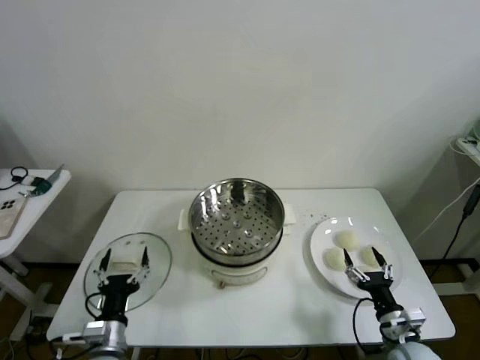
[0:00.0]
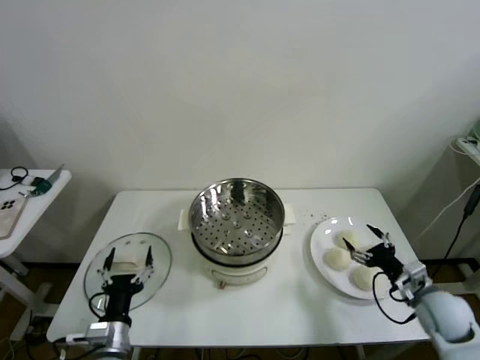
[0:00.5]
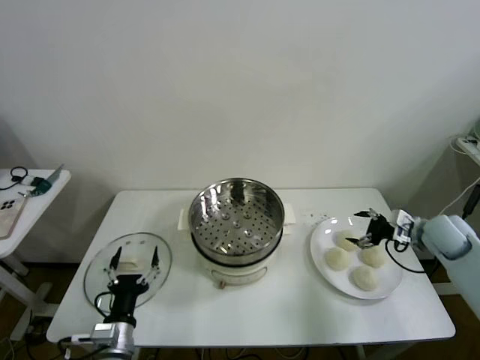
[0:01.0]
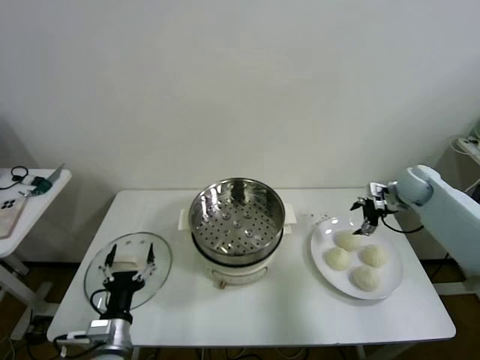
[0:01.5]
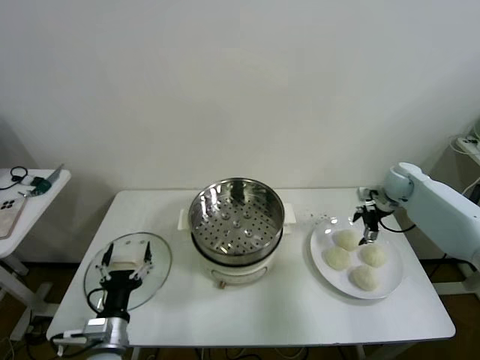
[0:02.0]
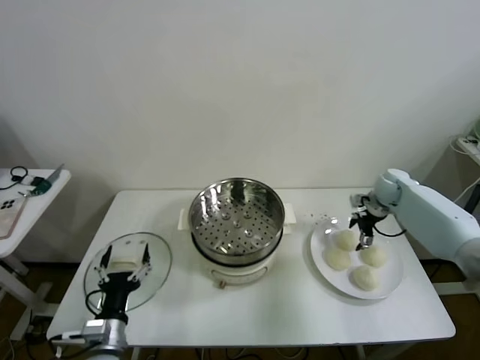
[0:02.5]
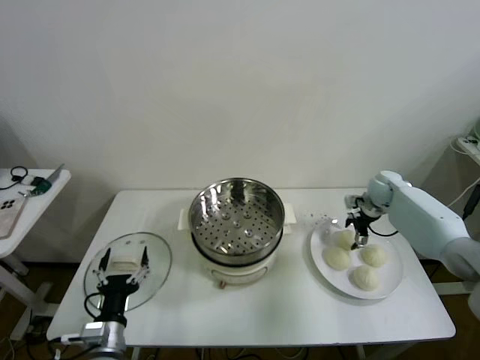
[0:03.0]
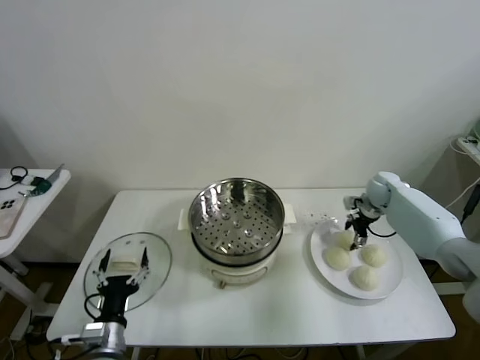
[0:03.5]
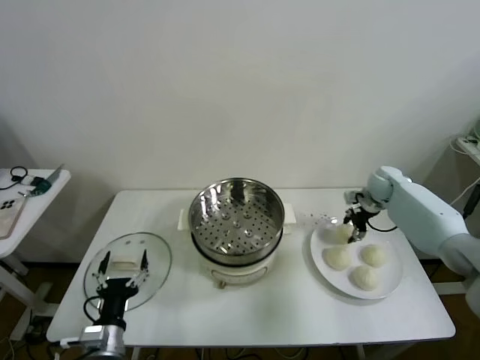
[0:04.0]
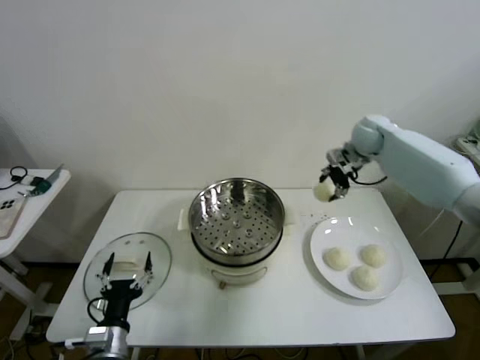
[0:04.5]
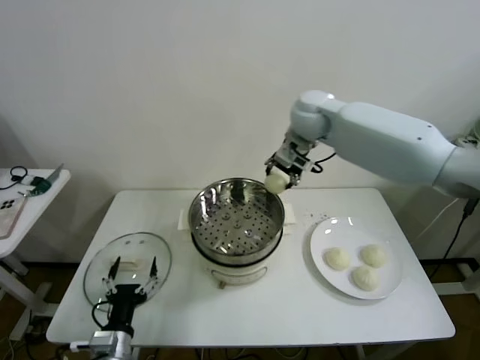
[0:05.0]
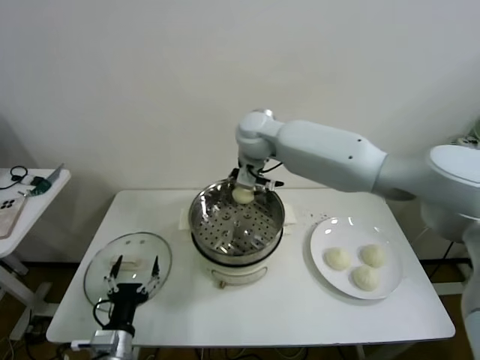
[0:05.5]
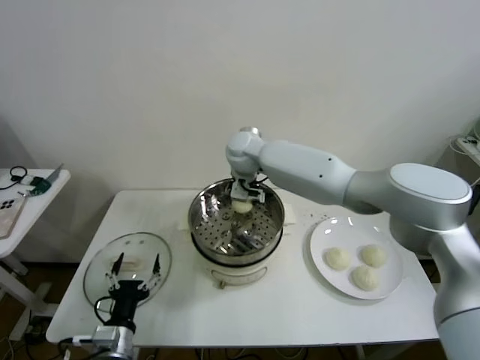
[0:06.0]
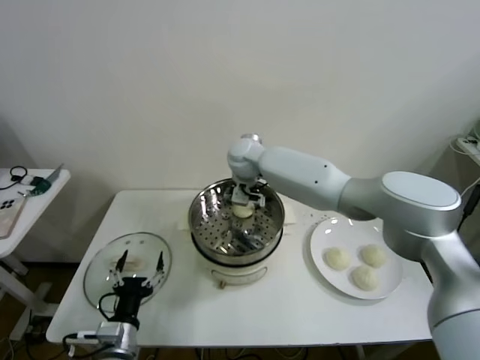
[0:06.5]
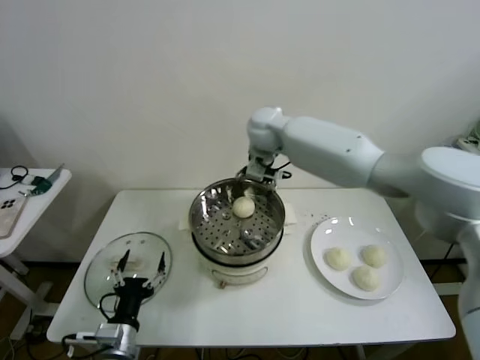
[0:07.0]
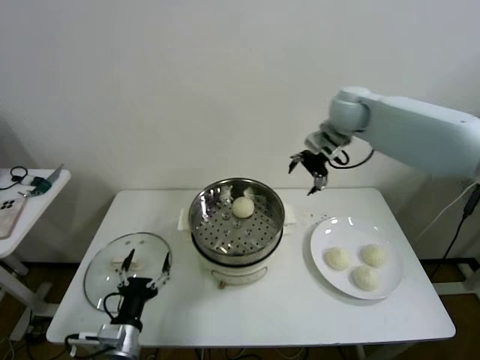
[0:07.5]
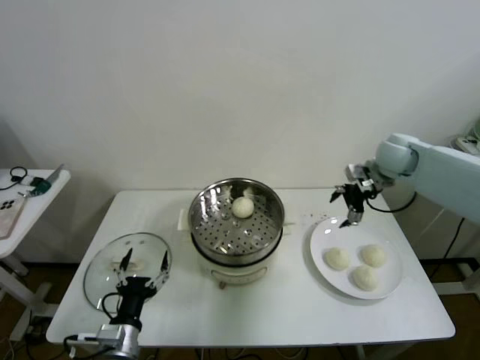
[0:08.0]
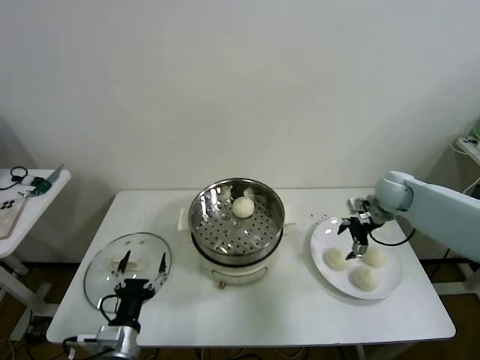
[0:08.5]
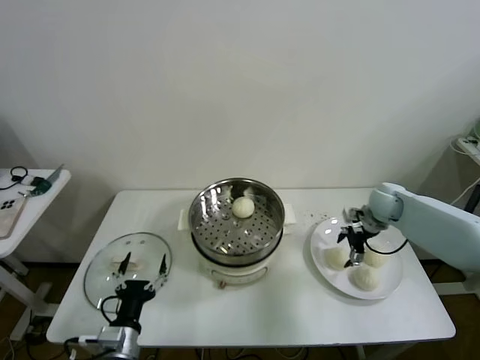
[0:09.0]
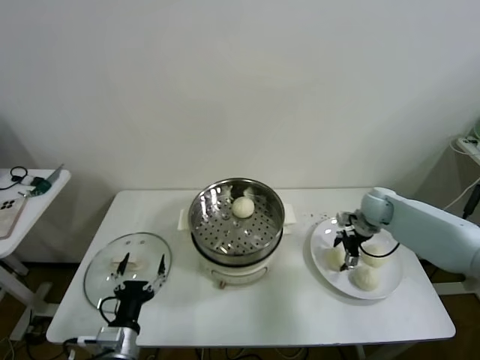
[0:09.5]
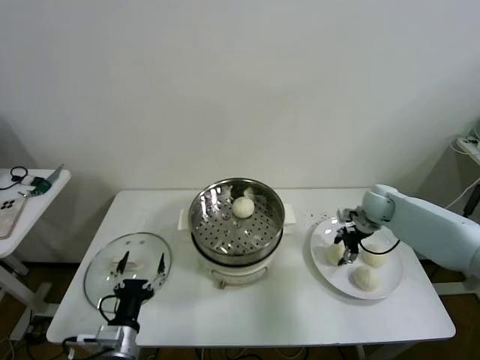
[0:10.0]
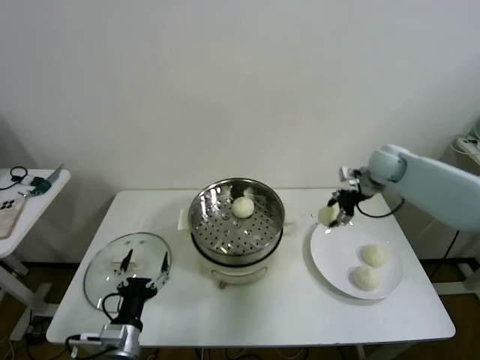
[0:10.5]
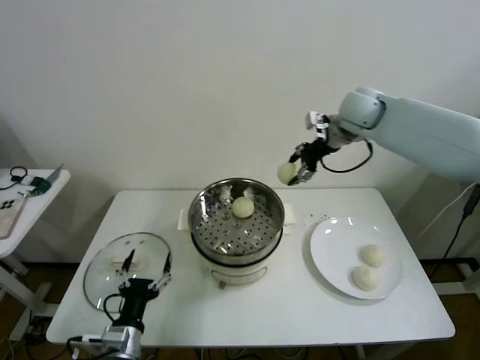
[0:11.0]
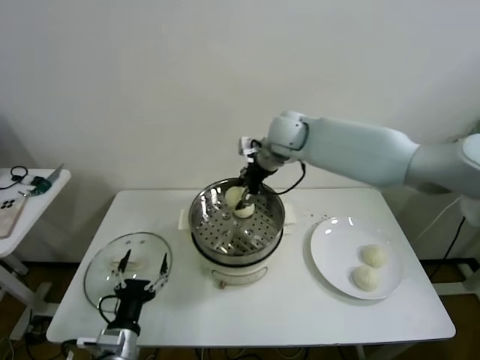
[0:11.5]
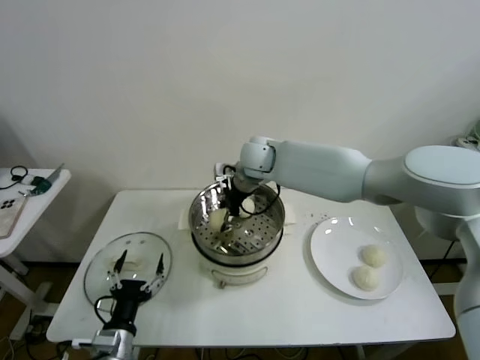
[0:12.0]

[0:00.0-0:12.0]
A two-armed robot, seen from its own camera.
Task of the whole recording: take steamed baozi put them in steamer then cover it.
Step, 0:00.0 to 0:03.5: Grasp the baozi in the plate with right gripper.
Step, 0:04.0 to 0:06.5: Place the baozi on the steamer with right gripper.
Step, 0:07.0 to 0:09.5: Grasp the baozi in the plate with right gripper.
0:02.0 to 0:04.0: The right gripper closes its fingers.
0:04.0 to 0:06.0: The right gripper travels to the left by about 40 cm.
0:06.0 to 0:08.0: The right gripper is displaced to the right by approximately 35 cm, and opens up.
0:08.0 to 0:10.0: The right gripper goes approximately 15 cm downward, and closes.
0:10.0 to 0:12.0: The right gripper goes roughly 35 cm to the left and upward.

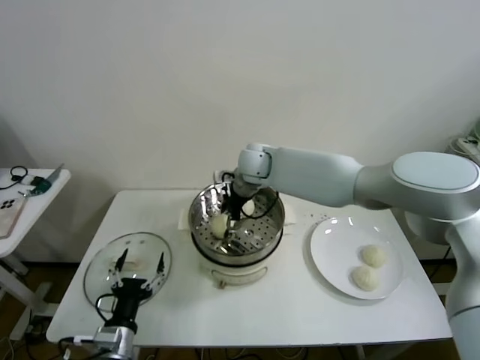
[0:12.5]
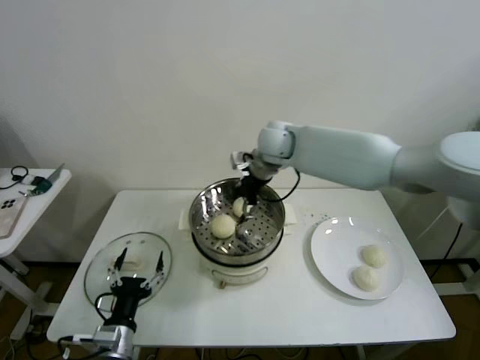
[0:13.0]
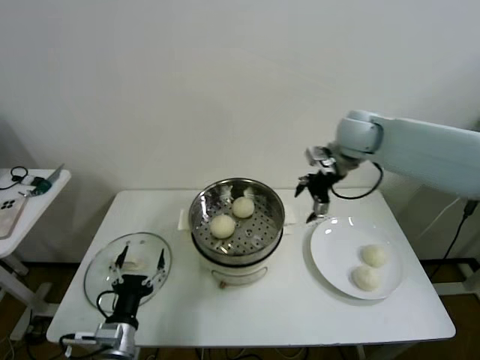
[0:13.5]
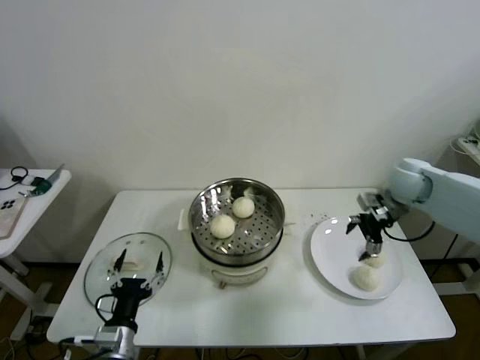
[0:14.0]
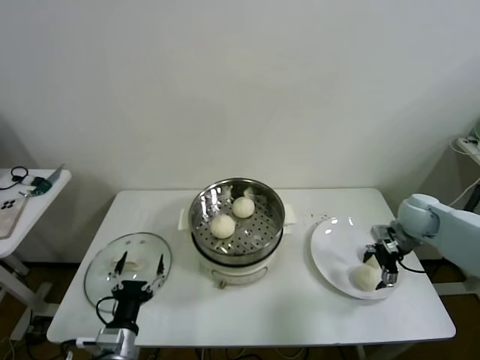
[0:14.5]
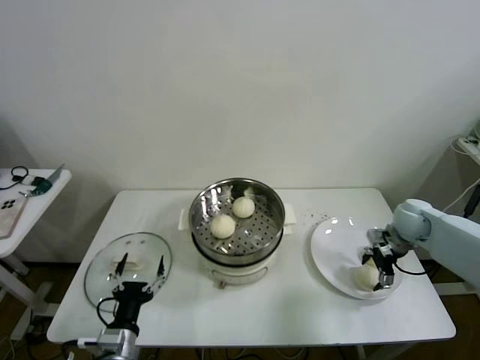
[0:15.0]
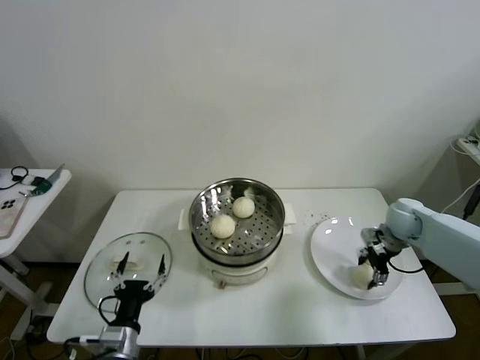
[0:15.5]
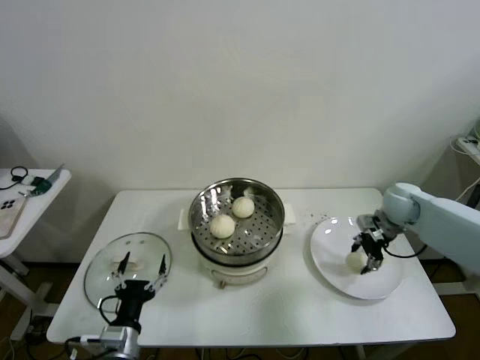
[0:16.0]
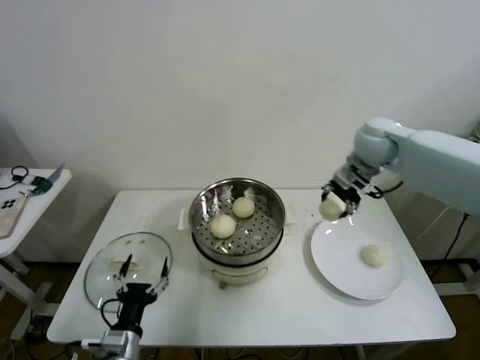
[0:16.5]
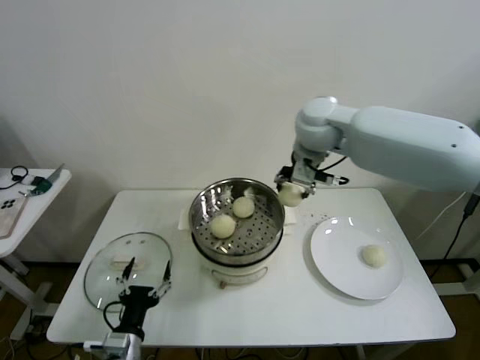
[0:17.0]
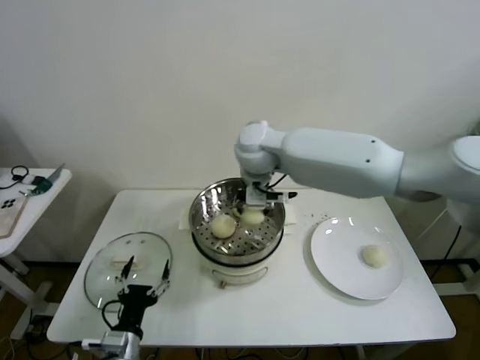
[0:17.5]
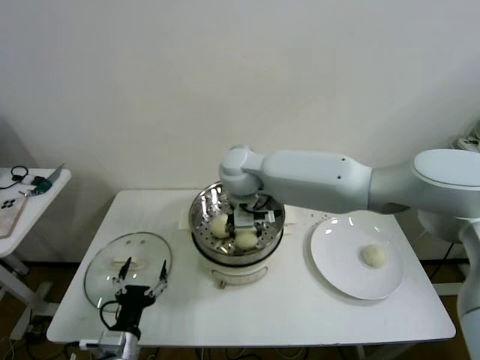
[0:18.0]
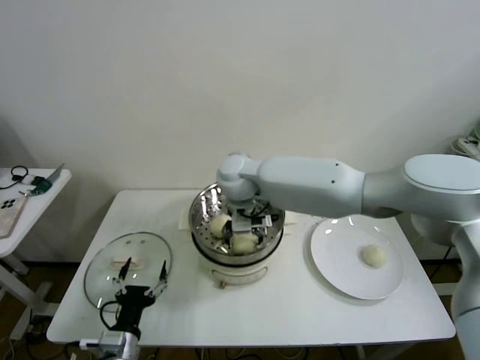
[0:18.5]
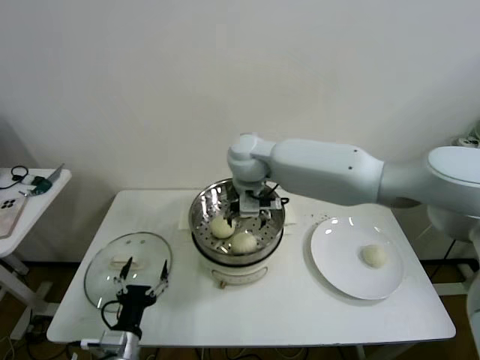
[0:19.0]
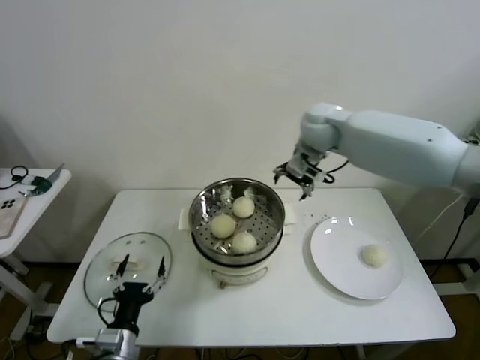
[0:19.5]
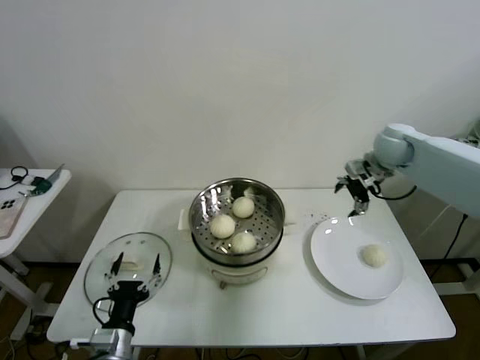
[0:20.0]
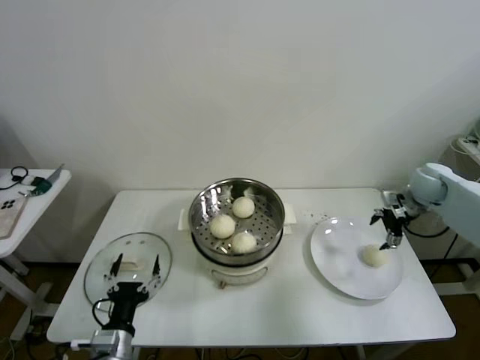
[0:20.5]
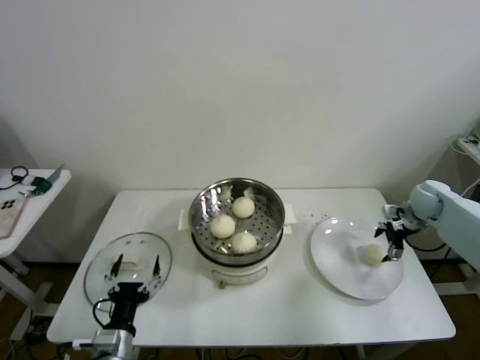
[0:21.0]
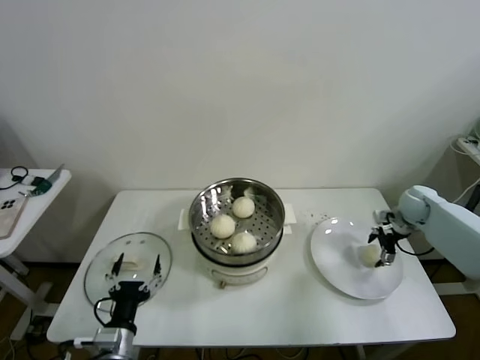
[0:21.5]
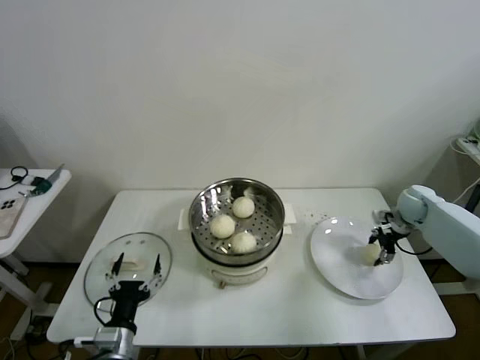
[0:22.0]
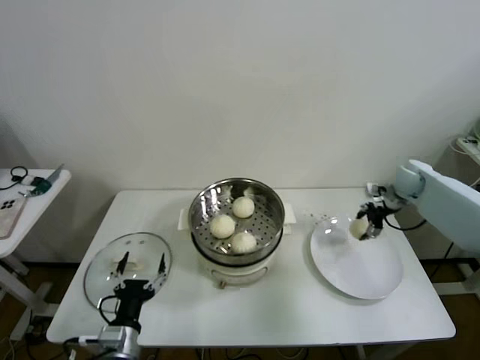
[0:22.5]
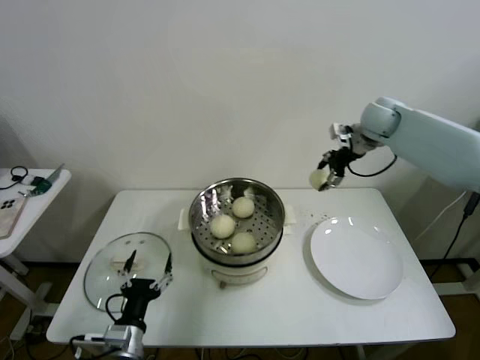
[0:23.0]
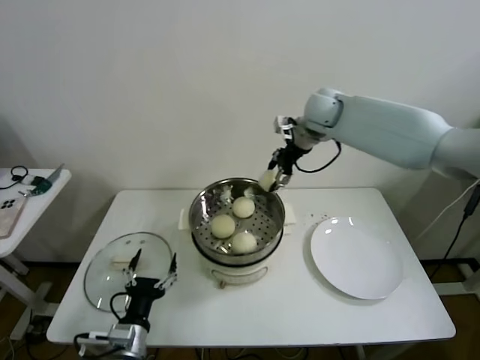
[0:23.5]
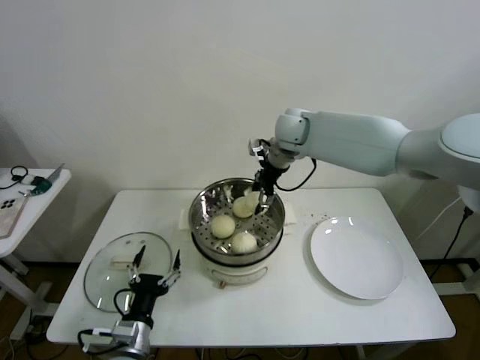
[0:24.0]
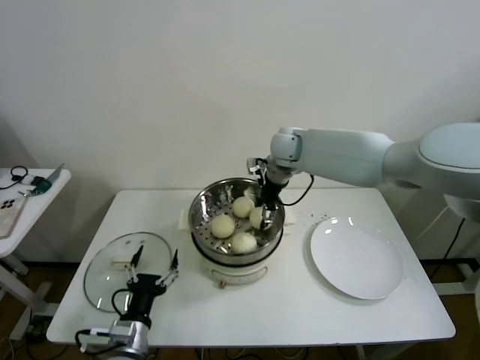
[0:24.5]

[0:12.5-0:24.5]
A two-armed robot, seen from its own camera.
Task of the whole recording: take steamed baozi put them in steamer then cover it.
Step, 0:13.0 to 0:15.5: Grasp the baozi in the plate with right gripper.
Step, 0:16.0 to 0:18.5: Place the baozi on the steamer with right gripper.
Step, 0:19.0 to 0:21.5: Grasp the baozi in the plate with right gripper.
0:12.5 to 0:14.5: The right gripper shifts approximately 40 cm to the right.
0:14.5 to 0:16.5: The right gripper is displaced upward, to the left and forward by some 20 cm, and closes.
0:16.5 to 0:18.5: The right gripper shifts approximately 30 cm to the left, and opens up.
0:18.5 to 0:20.5: The right gripper shifts approximately 50 cm to the right.
0:20.5 to 0:22.5: The right gripper closes its fingers.
0:22.5 to 0:24.5: The right gripper travels to the left by approximately 35 cm.

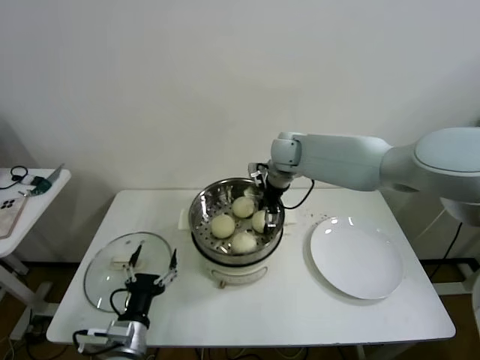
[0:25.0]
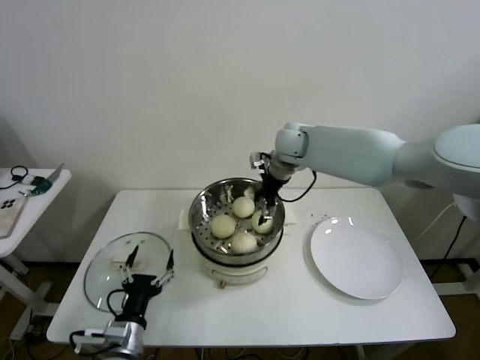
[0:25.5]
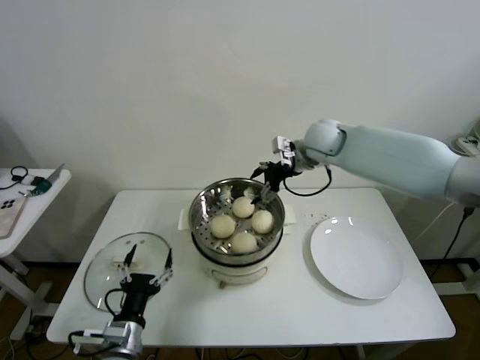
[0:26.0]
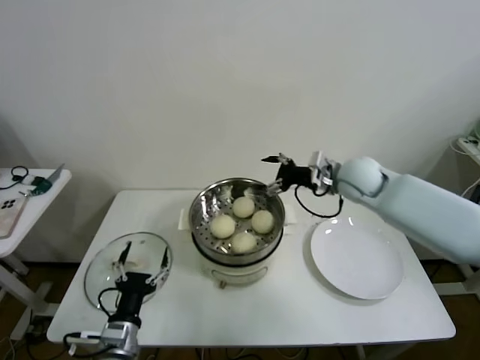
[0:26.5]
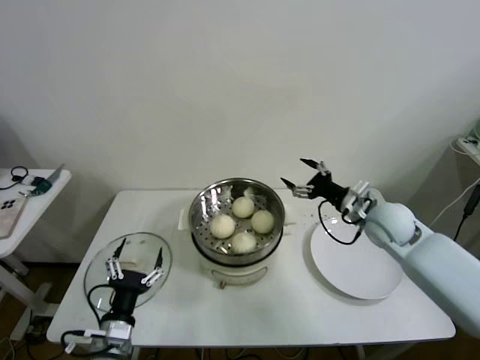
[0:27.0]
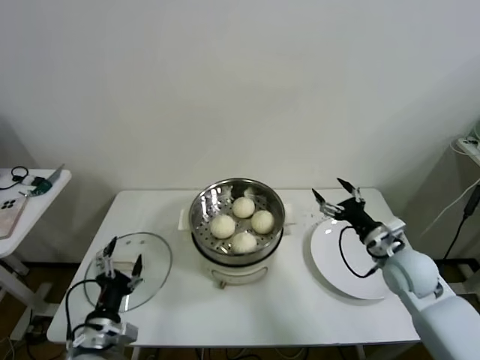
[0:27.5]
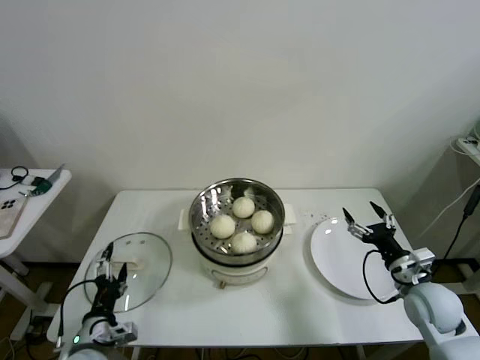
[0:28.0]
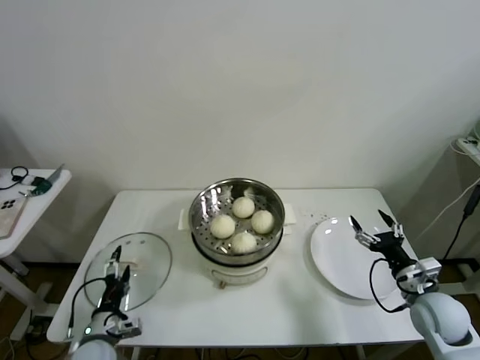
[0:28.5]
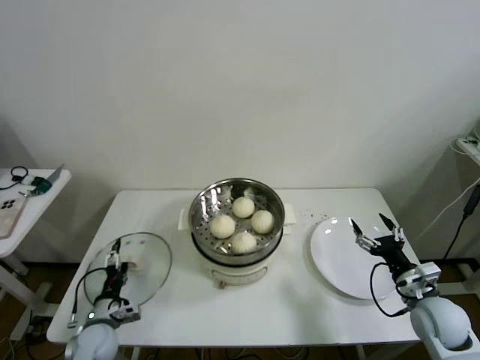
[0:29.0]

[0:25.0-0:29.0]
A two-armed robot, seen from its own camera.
Task of the whole recording: take steamed baozi put them in steamer then cover it.
0:25.0 to 0:27.0: The right gripper moves to the right and backward, roughly 25 cm.
0:27.0 to 0:29.0: The left gripper shifts some 15 cm downward, to the left and forward. Meanwhile the right gripper shifts roughly 25 cm backward, downward and to the right.
